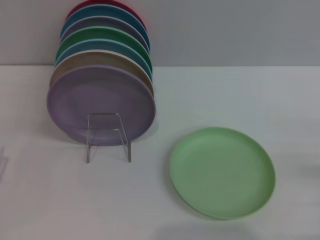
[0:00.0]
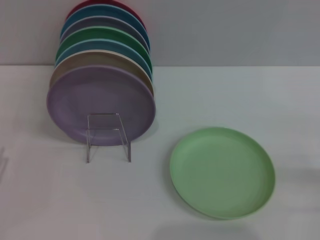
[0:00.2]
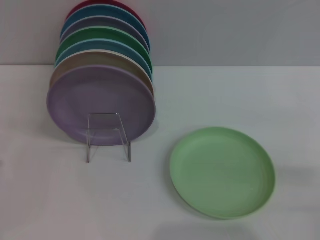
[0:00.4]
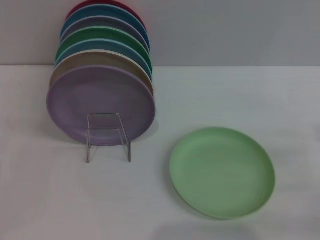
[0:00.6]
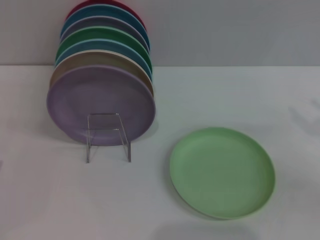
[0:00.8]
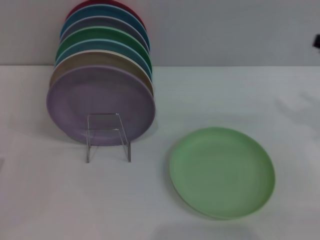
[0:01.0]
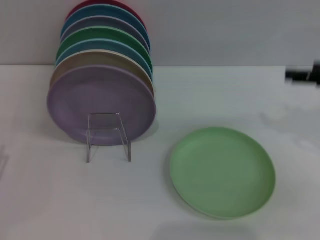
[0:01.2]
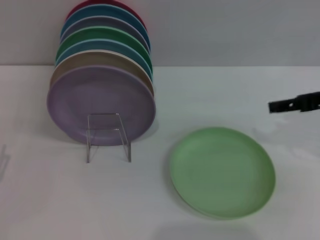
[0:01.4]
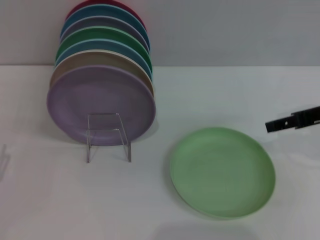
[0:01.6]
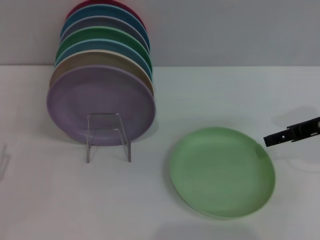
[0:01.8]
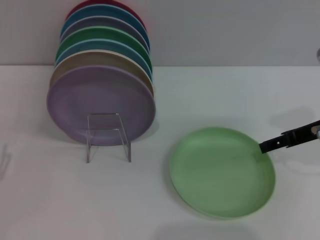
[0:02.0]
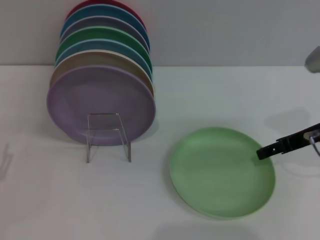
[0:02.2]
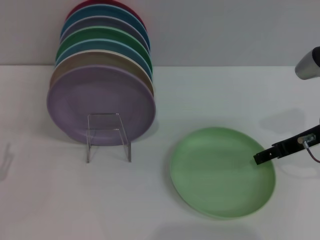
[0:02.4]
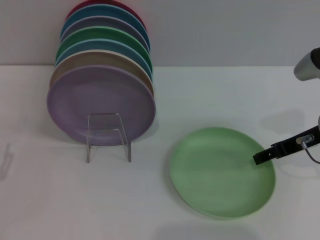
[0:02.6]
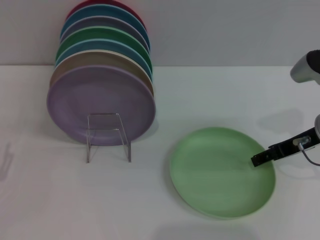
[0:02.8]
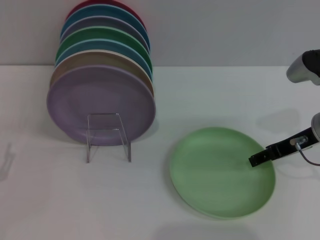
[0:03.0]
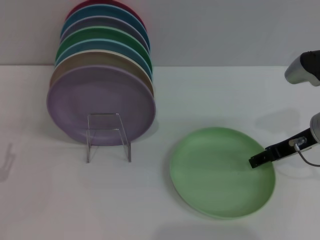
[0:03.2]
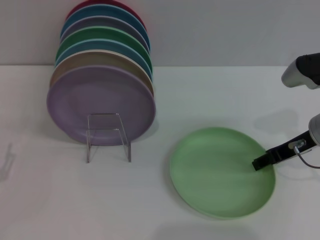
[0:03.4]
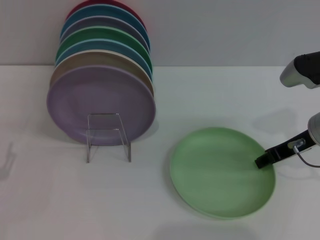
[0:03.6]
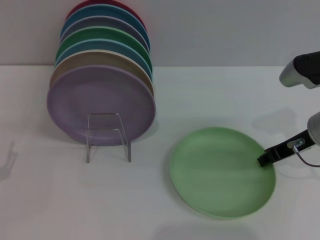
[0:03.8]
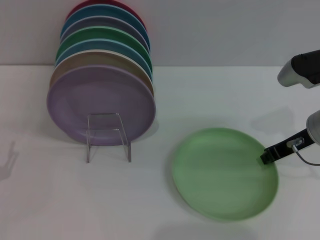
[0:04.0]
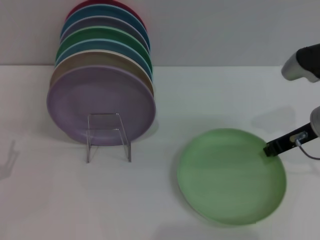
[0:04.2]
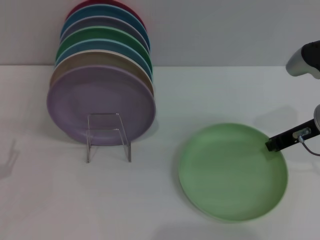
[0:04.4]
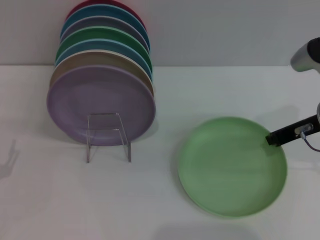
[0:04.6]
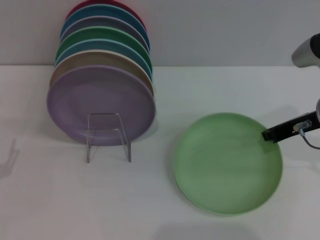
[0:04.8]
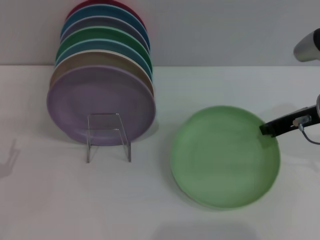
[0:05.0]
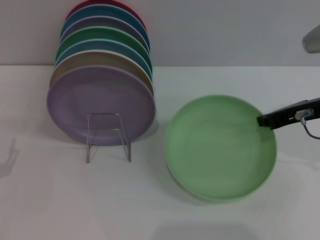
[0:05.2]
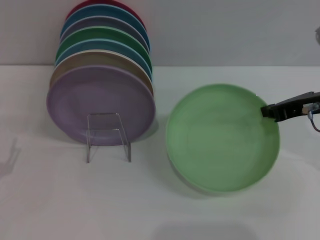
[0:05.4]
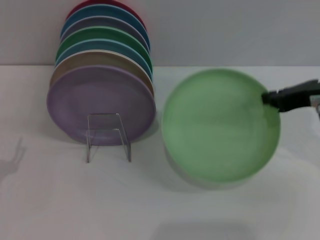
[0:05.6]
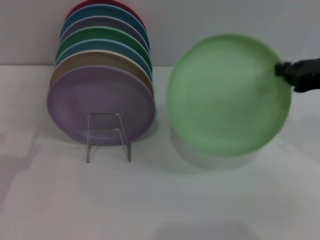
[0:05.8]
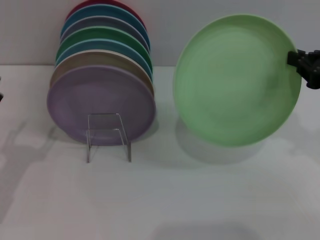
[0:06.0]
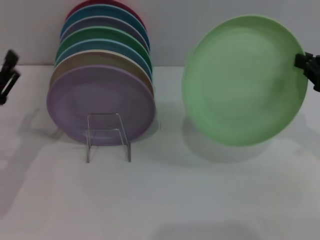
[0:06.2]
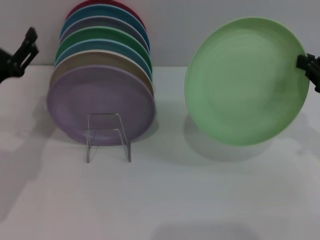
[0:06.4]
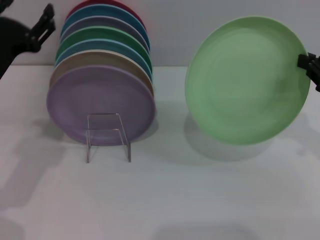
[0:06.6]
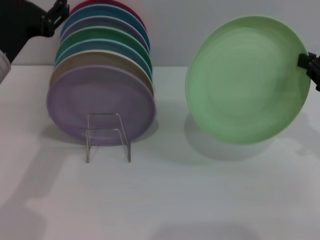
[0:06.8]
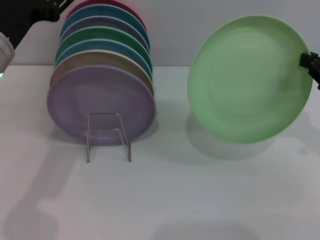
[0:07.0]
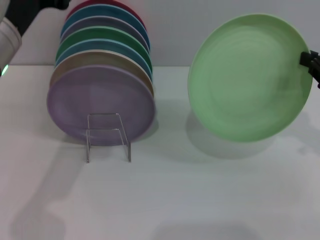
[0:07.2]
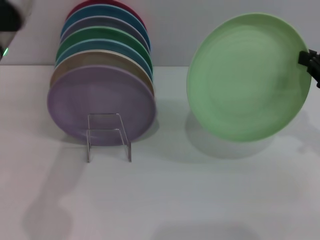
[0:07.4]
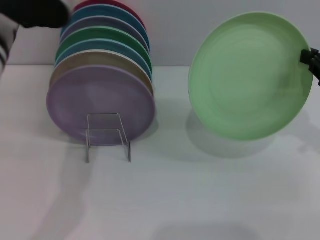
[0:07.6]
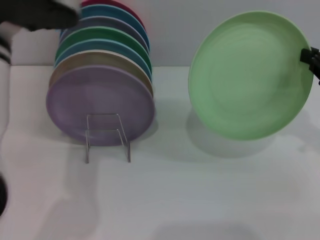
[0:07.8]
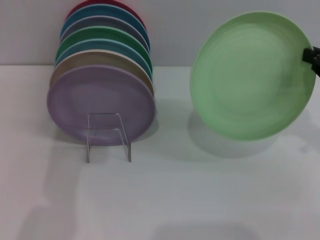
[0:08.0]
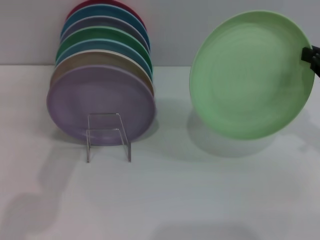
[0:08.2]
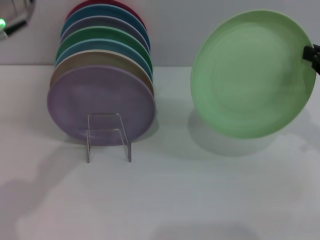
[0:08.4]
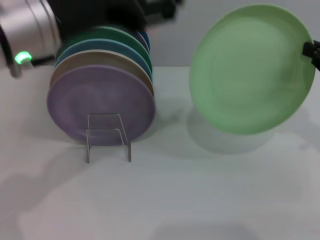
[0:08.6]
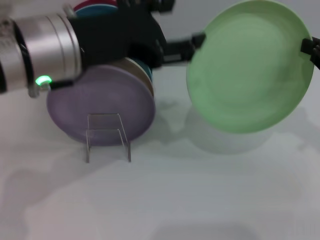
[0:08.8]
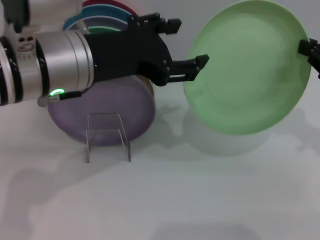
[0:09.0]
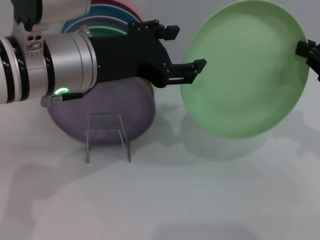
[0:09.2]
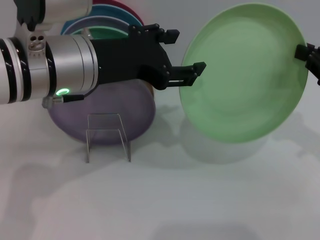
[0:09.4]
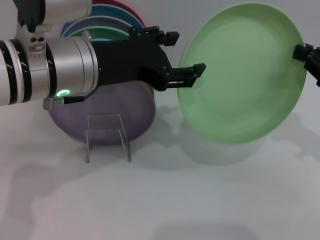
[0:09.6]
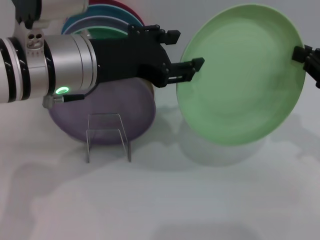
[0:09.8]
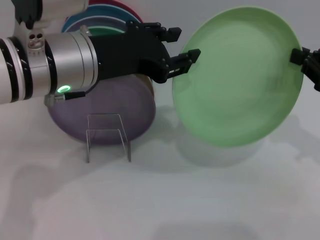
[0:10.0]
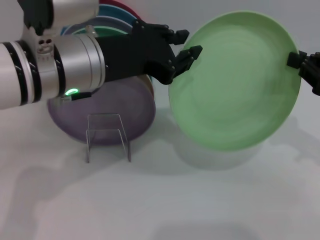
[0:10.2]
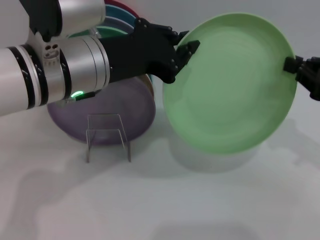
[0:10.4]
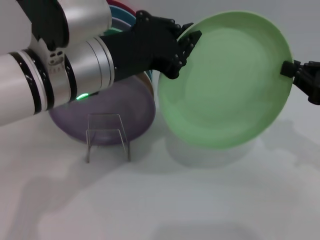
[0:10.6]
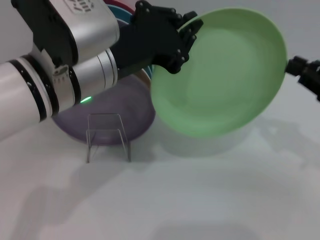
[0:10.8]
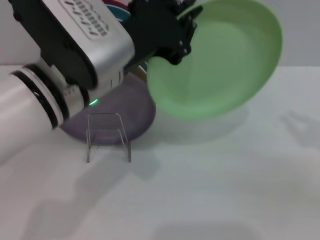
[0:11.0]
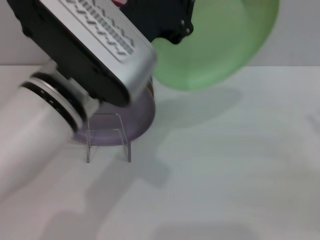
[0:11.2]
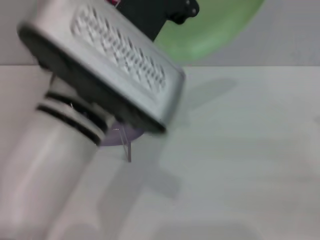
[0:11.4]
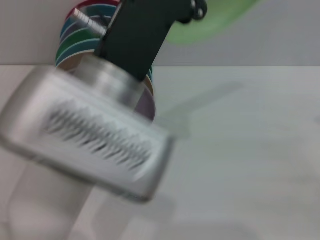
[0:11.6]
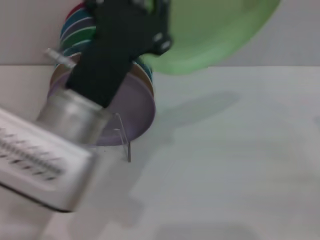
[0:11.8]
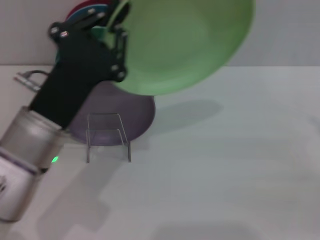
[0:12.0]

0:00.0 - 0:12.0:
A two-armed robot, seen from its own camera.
Task of the whole recording: Grip the plate with one hand, pass it to the other, then set it on the shelf.
Step, 0:00.0 - 0:05.6: Pick up the plate with the right gripper.
Step, 0:05.8 - 0:10.8: Pass the plate from the right gripper to the left gripper.
0:00.0 - 0:01.6: The right gripper heads upward, forward and to the left, covering roughly 25 cm.
0:01.6 - 0:03.0: The right gripper goes roughly 5 cm downward.
0:03.0 - 0:04.4: The right gripper closes its fingers.
0:04.4 - 0:06.0: The left gripper ends up about 5 cm from where it was. The right gripper shifts about 10 cm backward and upward.
0:06.0 - 0:07.6: The left gripper is displaced upward, to the right and forward by roughly 25 cm.
0:09.0 - 0:10.4: The left gripper closes its fingers.
0:10.4 - 0:12.0: The left gripper goes roughly 10 cm downward and backward, while the right gripper shifts about 10 cm to the right, and opens.

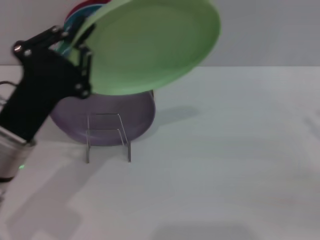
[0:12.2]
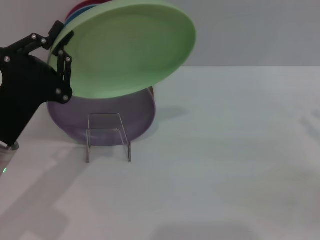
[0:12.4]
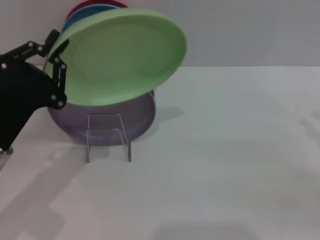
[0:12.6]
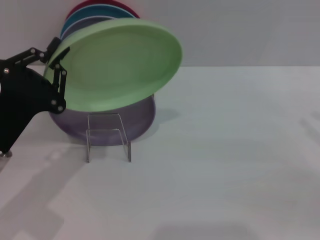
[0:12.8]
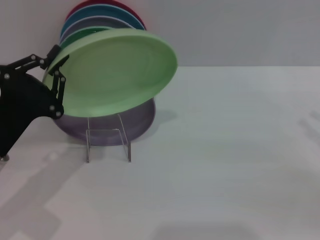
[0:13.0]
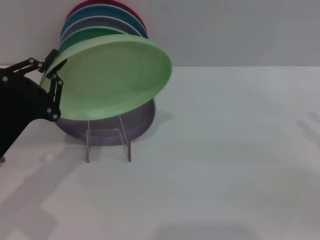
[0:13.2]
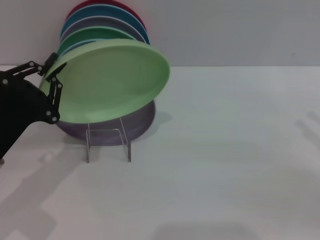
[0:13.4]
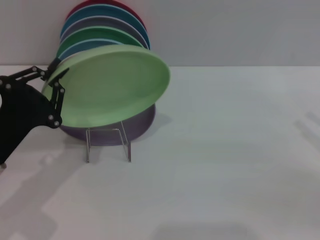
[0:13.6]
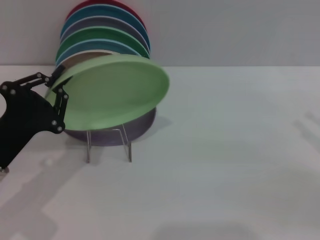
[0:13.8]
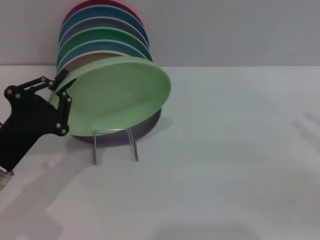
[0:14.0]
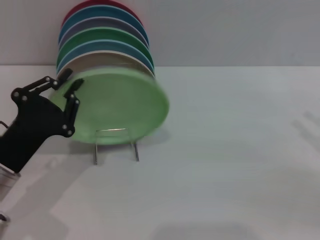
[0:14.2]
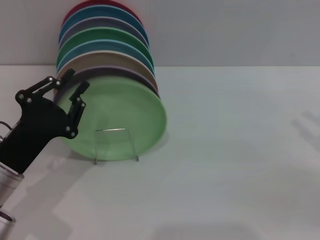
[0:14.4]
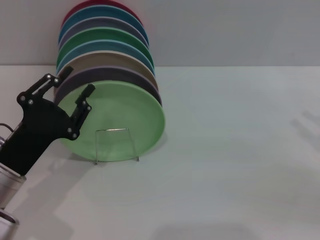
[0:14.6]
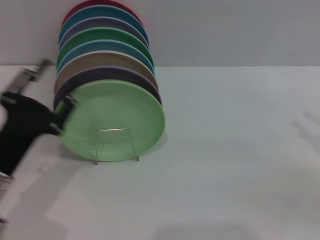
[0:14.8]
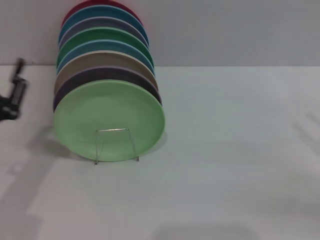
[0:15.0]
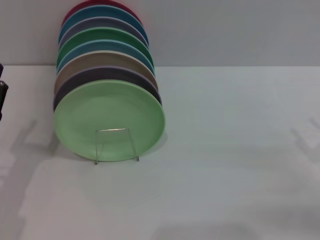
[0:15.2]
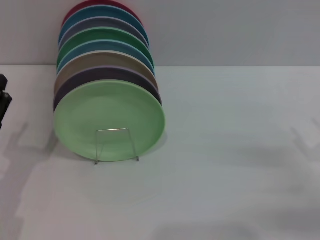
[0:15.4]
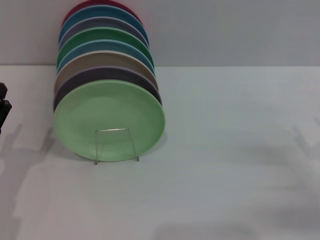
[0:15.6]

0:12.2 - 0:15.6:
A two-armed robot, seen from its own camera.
Task of the whole recording: Grip the plate with one hand, pass it to the other, then set it on the shelf.
Step, 0:12.2 - 0:14.6: Place the plate on the shelf with the left gripper.
0:12.2 - 0:13.8: The left gripper heads to the left, covering some 5 cm.
0:13.8 - 0:15.6: The left gripper ends up about 5 cm from where it was, and opens up. The right gripper is displaced downward by some 10 cm.

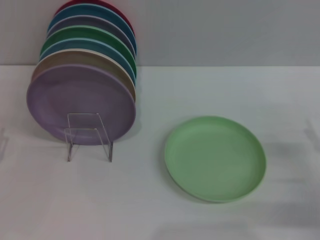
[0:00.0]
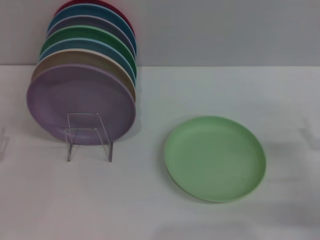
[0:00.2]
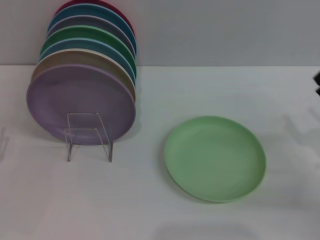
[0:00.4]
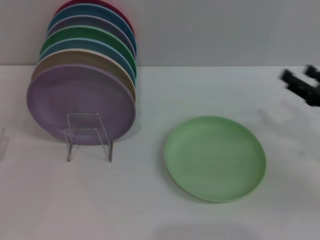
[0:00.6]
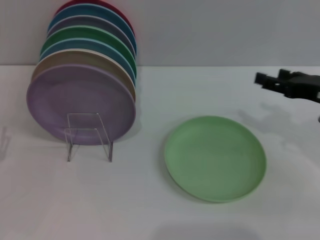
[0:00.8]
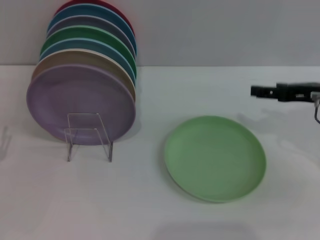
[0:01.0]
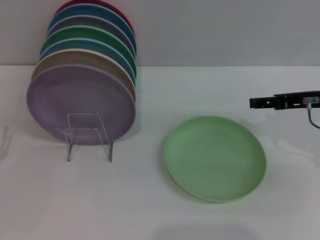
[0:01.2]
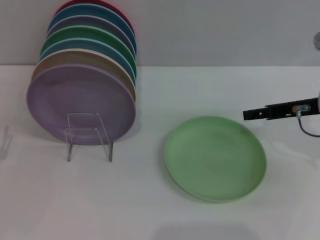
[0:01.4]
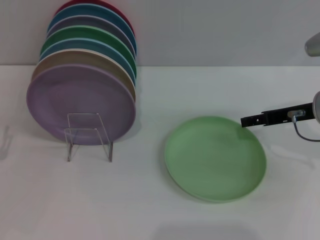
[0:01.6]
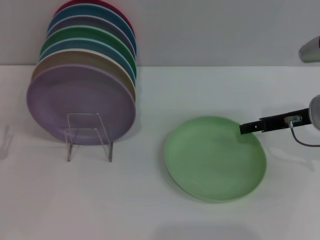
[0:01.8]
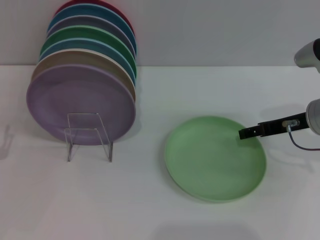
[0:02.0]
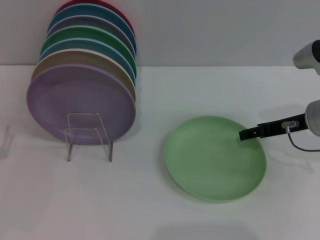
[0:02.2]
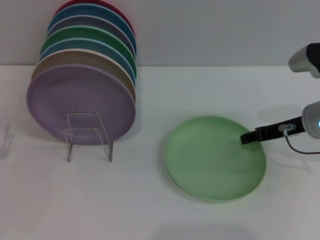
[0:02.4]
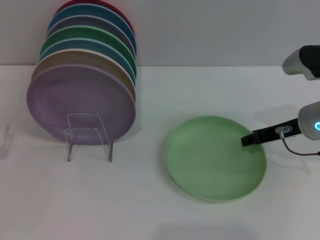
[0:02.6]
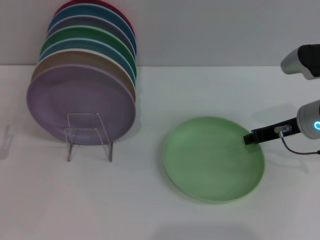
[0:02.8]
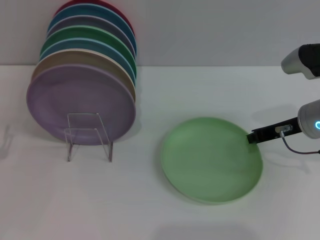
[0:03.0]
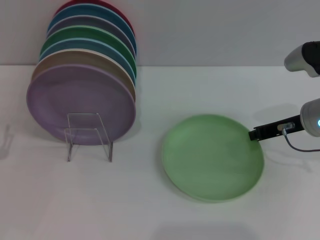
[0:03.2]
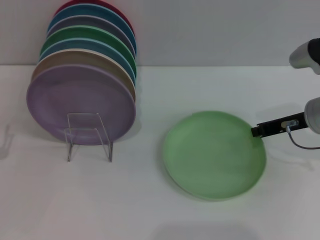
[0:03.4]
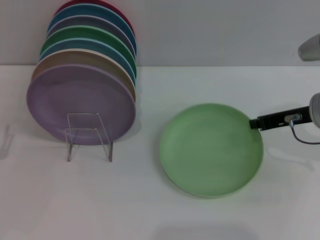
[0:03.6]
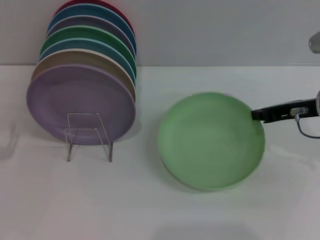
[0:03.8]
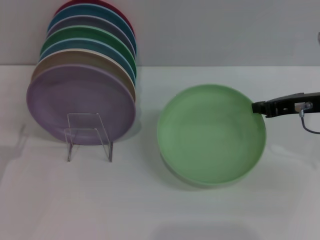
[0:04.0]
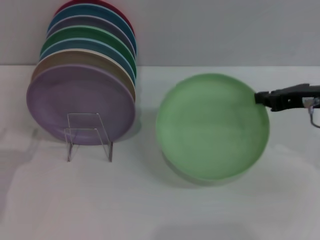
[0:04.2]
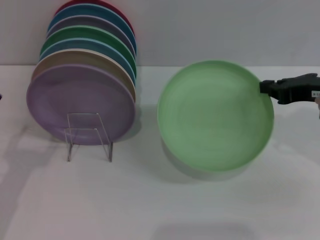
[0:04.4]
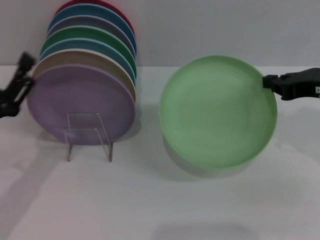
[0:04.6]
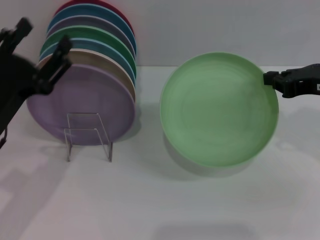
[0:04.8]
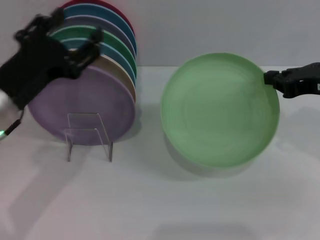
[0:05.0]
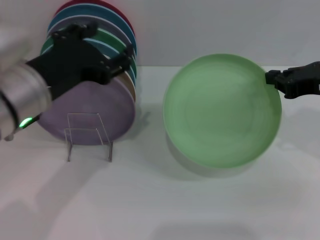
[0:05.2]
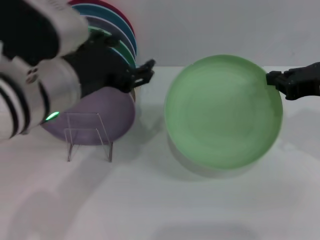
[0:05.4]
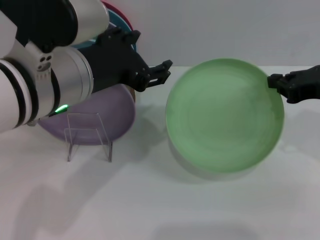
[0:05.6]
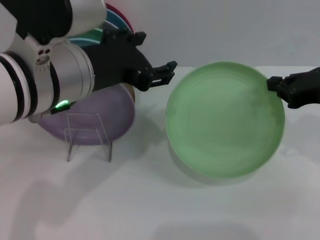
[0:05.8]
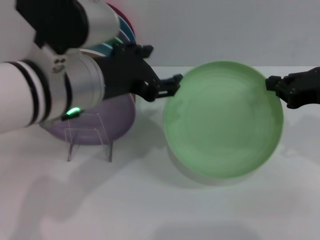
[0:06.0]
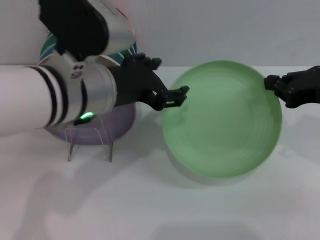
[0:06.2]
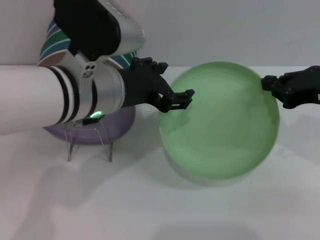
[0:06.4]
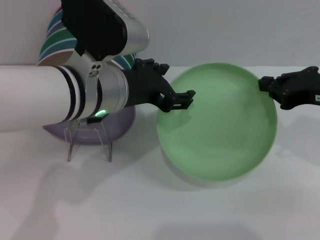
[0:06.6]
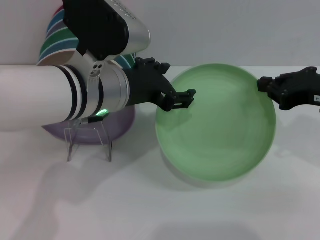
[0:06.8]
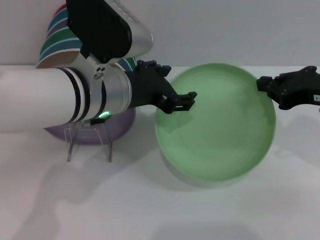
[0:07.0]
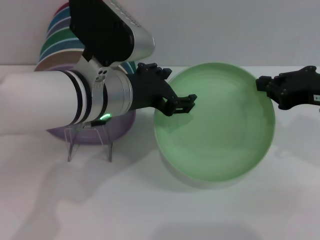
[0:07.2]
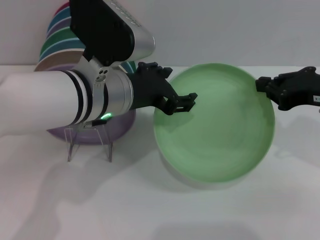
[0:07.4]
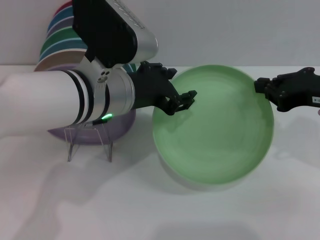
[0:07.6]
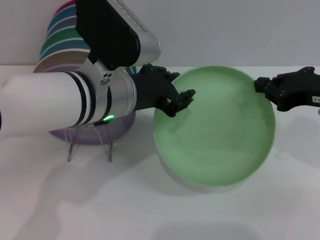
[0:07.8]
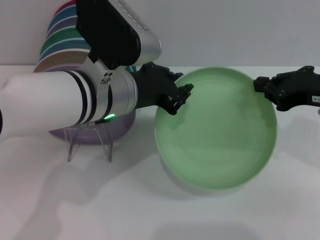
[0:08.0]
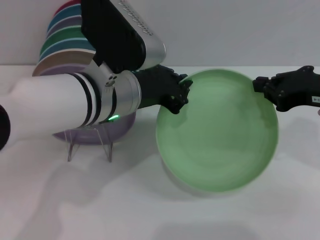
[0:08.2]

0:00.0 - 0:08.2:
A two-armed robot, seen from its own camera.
Task of the whole recording: Grip the plate with one hand, pass it to the other, then set it on the shelf.
Step, 0:00.0 - 0:04.2: Pick up the plate with the right gripper.
0:00.0 - 0:01.6: The right gripper is displaced forward, upward and to the left by some 20 cm.
0:01.6 - 0:03.2: The right gripper closes its fingers.
0:03.2 - 0:05.0: The left gripper moves upward and to the right, some 20 cm. The right gripper moves upward, about 5 cm.
0:05.0 - 0:06.6: The left gripper moves to the right, approximately 10 cm.
0:06.6 - 0:08.2: The left gripper closes.
